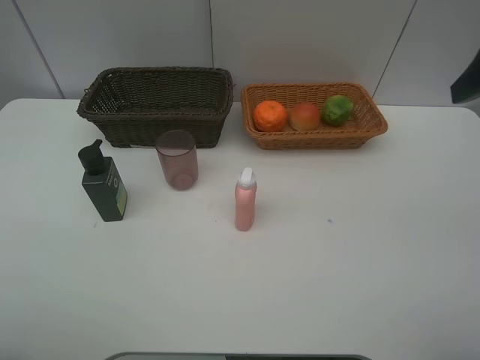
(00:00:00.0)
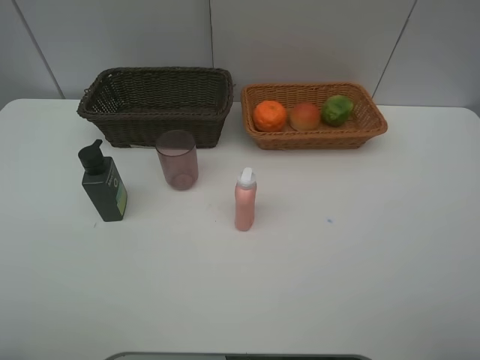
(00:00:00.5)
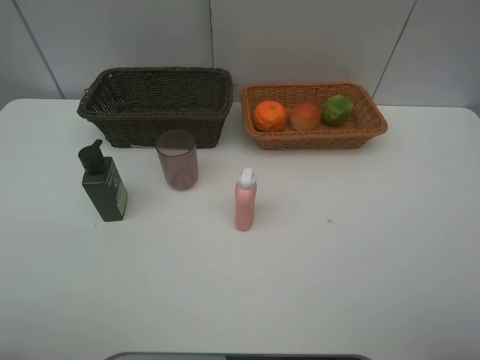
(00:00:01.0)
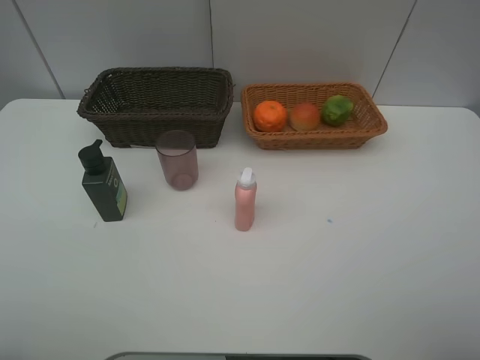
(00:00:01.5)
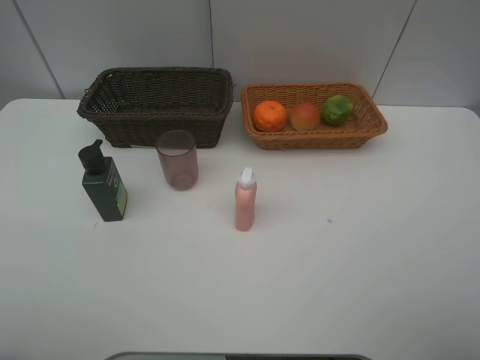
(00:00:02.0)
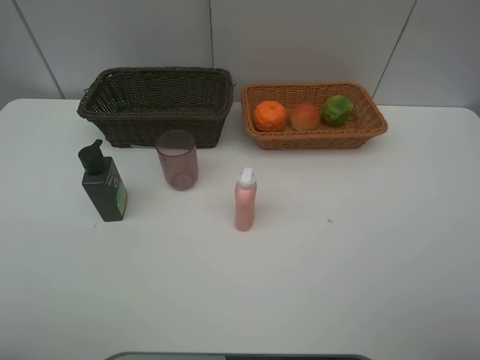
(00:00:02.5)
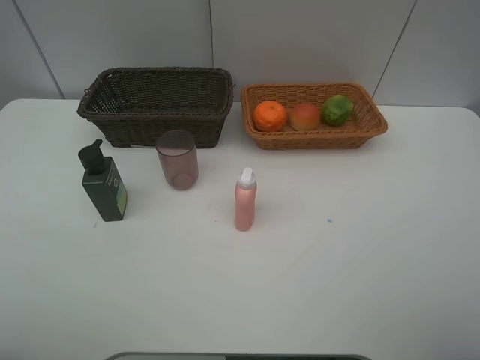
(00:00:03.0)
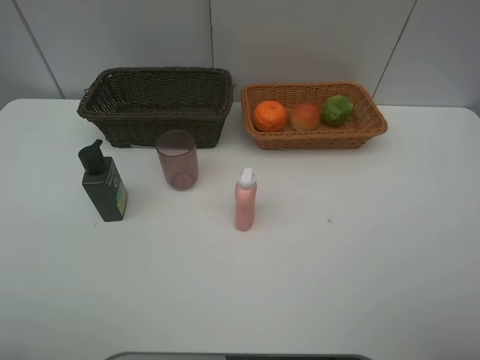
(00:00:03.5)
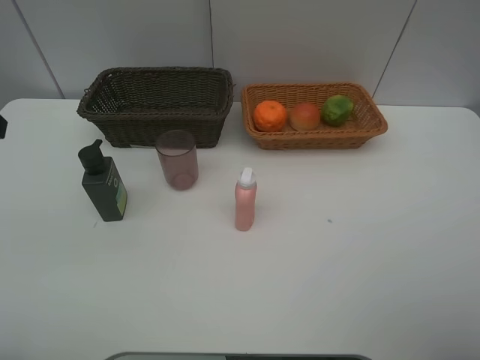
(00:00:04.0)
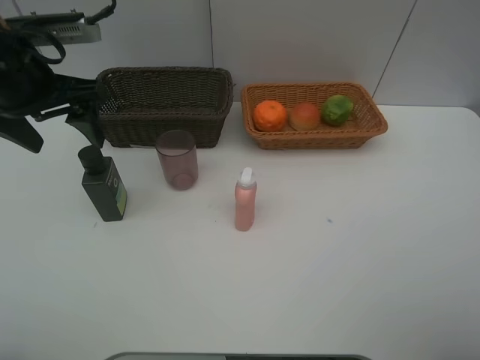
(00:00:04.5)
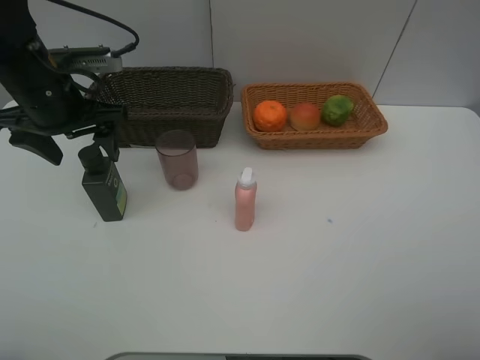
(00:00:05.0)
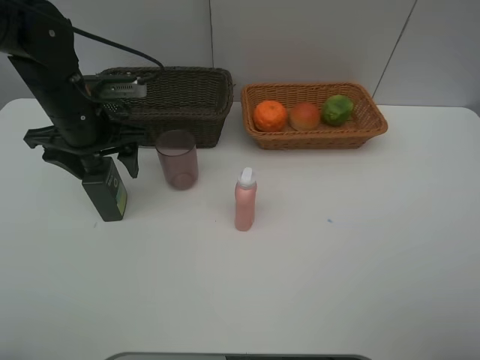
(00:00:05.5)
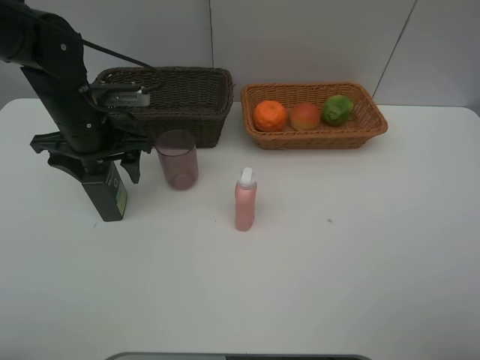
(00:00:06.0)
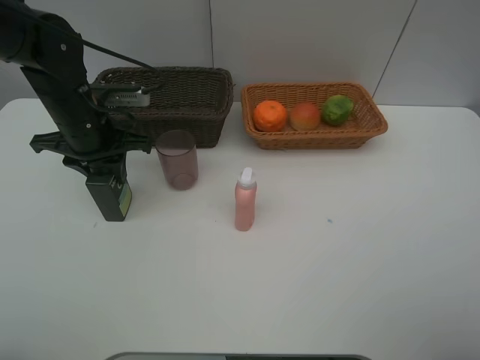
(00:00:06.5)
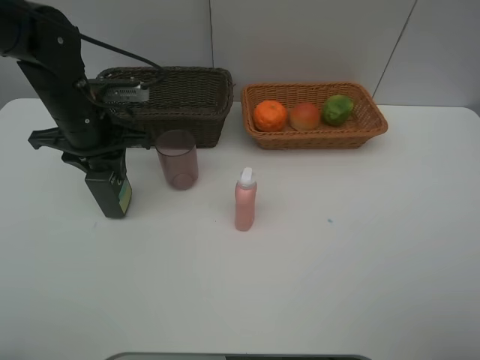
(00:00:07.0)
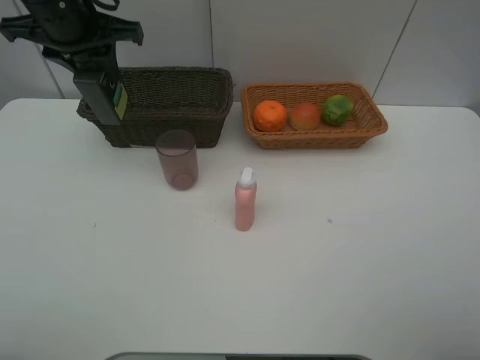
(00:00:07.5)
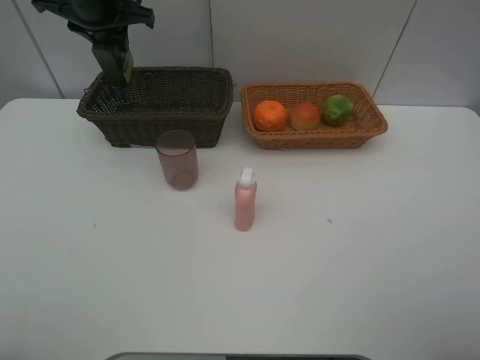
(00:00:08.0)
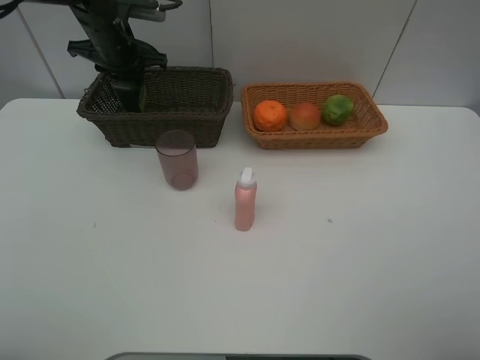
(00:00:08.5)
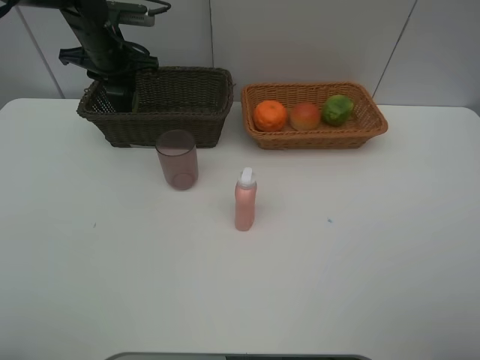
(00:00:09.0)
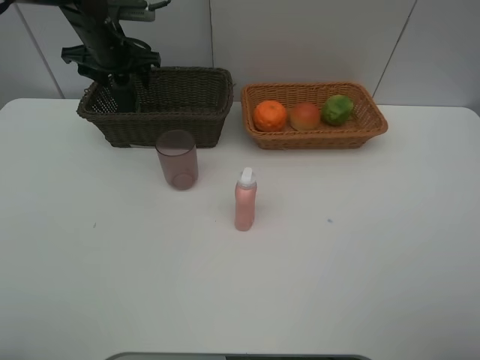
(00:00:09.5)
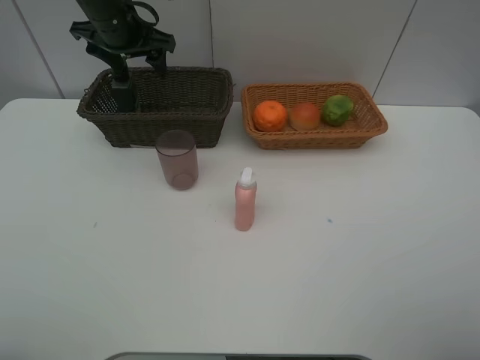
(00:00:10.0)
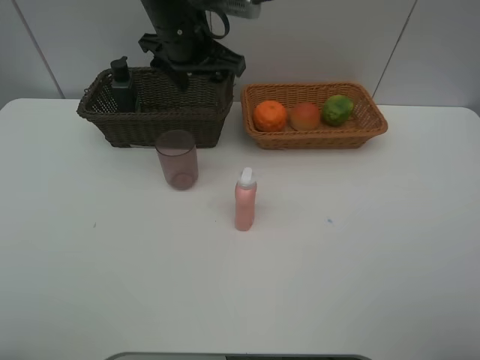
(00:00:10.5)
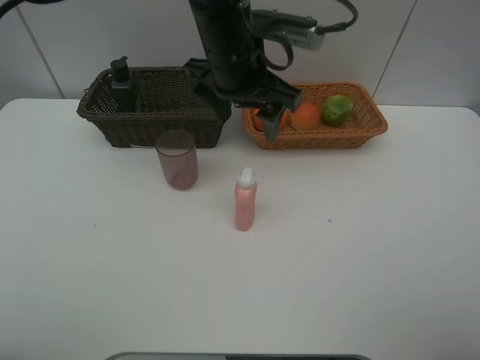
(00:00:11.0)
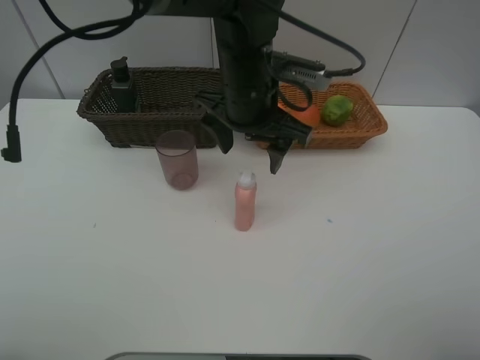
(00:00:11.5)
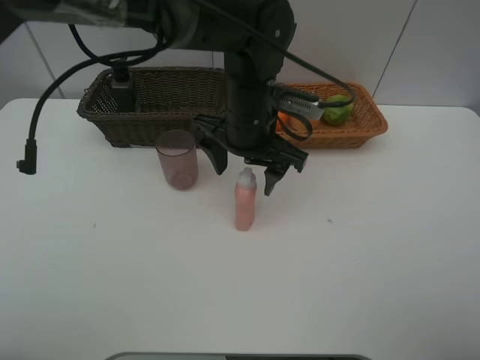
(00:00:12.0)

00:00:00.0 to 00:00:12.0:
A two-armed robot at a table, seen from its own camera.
Task of the whole recording: place multiple objects separately in different baskets.
00:00:04.0 to 00:00:06.0: The left gripper is displaced downward, forward and to the right by approximately 20 cm.
00:00:06.0 to 00:00:08.0: The left gripper shifts about 15 cm forward and upward, and closes.
00:00:08.0 to 00:00:10.0: The left gripper goes downward and returns, roughly 10 cm each way, and opens its fingers.
00:00:10.0 to 00:00:12.0: The left gripper shifts about 25 cm to the right and backward.

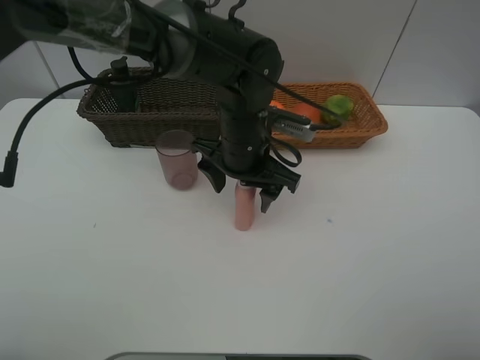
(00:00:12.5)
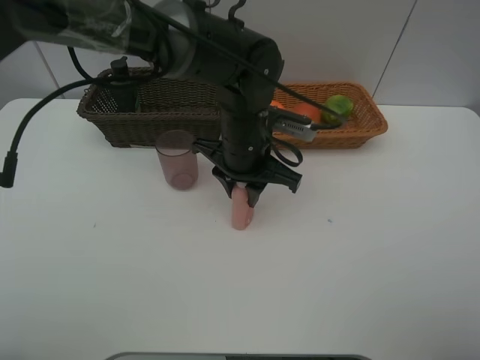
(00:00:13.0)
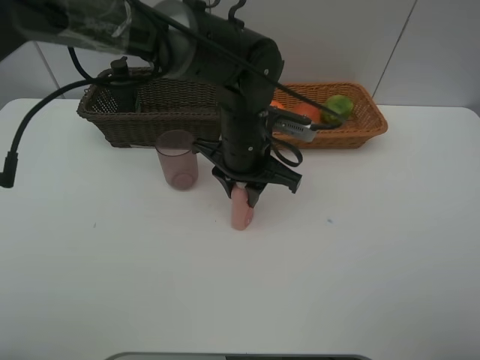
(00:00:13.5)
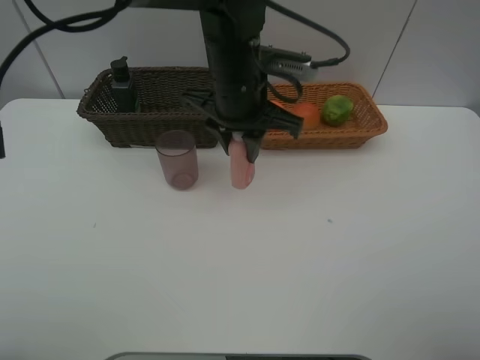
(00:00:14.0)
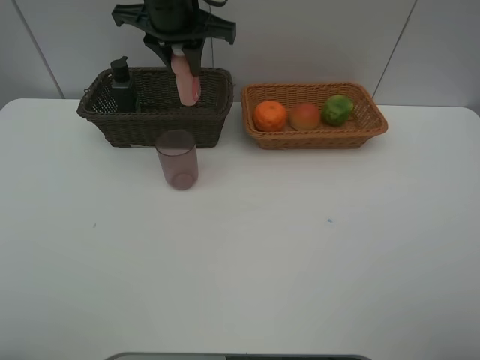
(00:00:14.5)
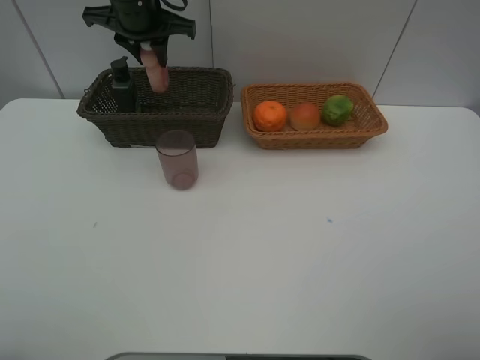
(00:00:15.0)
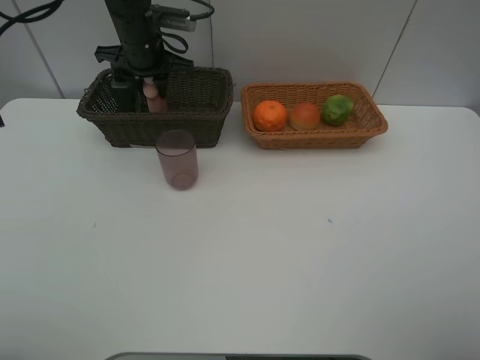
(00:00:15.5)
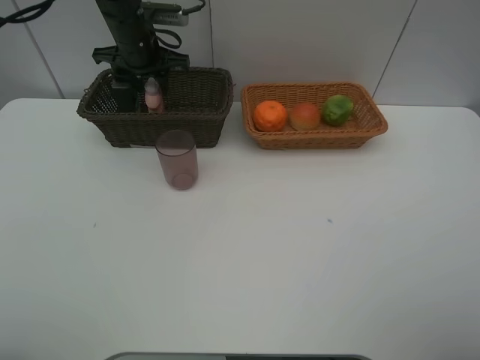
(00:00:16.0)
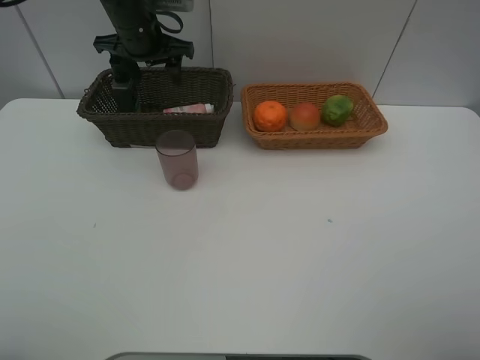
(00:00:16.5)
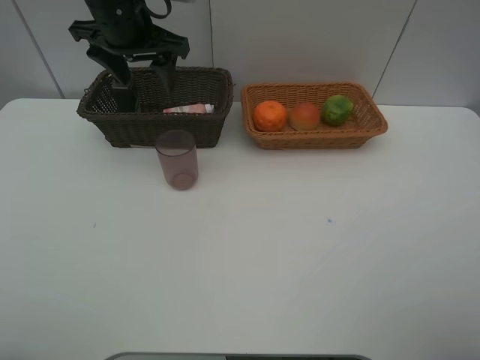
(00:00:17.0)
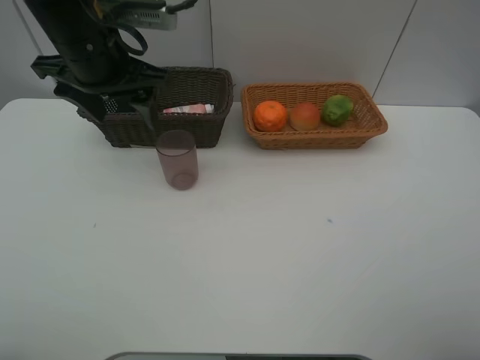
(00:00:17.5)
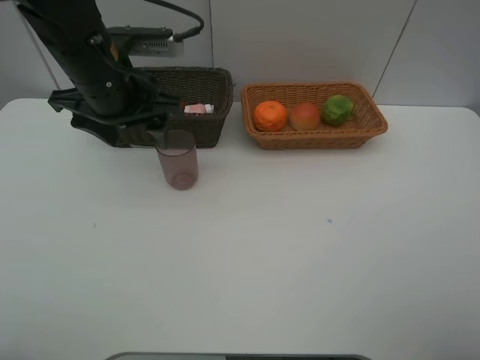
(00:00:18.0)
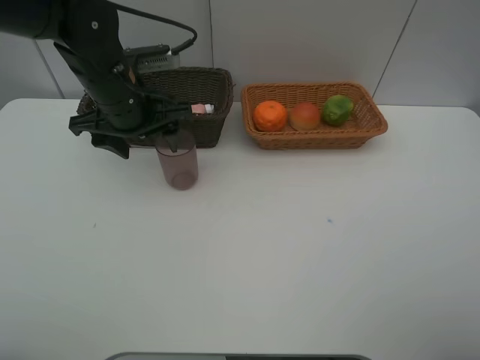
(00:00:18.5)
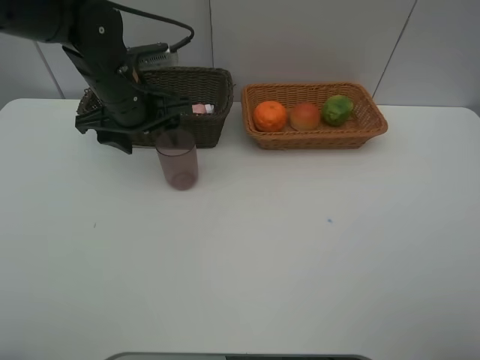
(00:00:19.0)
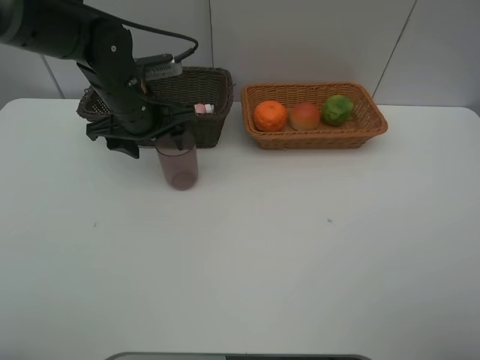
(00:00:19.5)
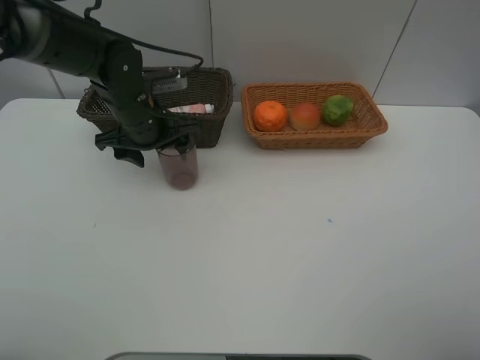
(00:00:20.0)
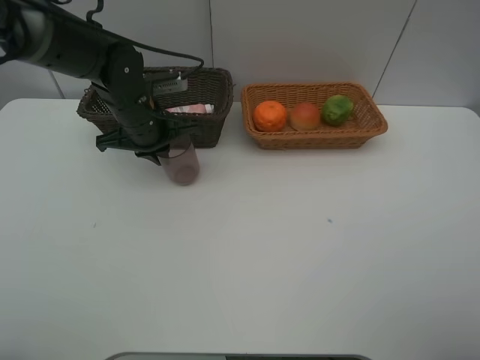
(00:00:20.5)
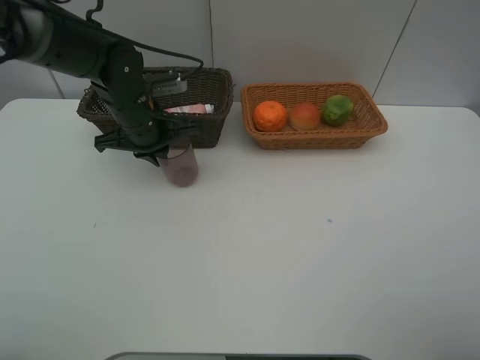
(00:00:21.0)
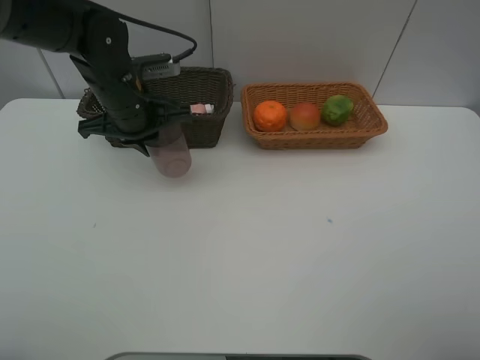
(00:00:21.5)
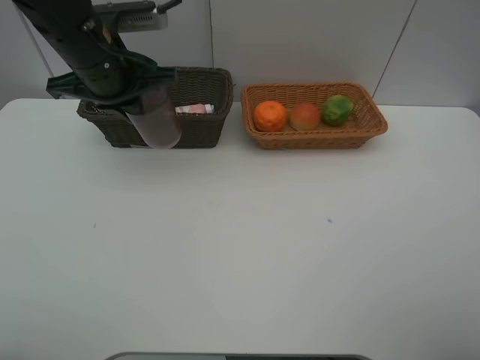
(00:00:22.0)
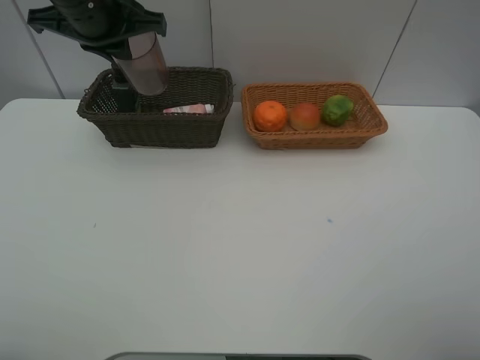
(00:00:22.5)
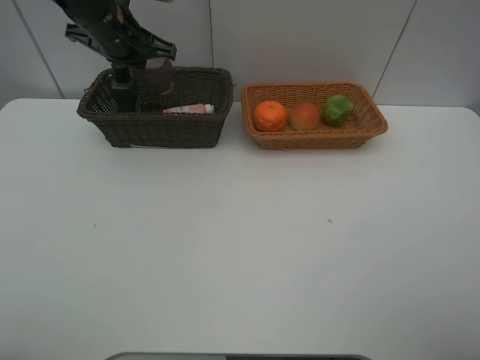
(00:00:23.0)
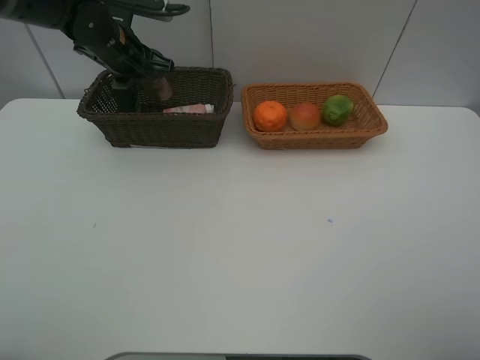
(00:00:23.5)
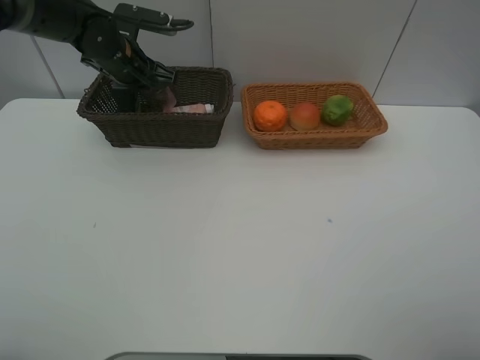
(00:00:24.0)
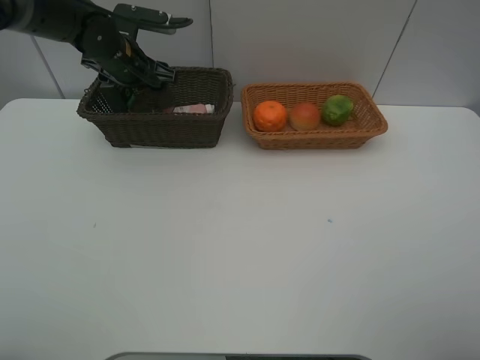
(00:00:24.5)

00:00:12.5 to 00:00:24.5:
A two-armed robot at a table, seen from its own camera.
Task of the whole recording: place multiple objects separately in different baskets.
00:00:12.5 to 00:00:14.5: The left gripper goes some 20 cm upward, forward and to the left, and closes.
00:00:14.5 to 00:00:16.5: The left gripper goes approximately 10 cm to the left, forward and downward, and opens.
00:00:16.5 to 00:00:18.5: The left gripper is displaced backward by approximately 15 cm.
00:00:18.5 to 00:00:20.5: The left gripper shifts approximately 5 cm downward, and closes up.
00:00:20.5 to 00:00:22.5: The left gripper shifts about 15 cm upward.
00:00:22.5 to 00:00:24.5: The left gripper travels downward and forward by about 15 cm, and opens.

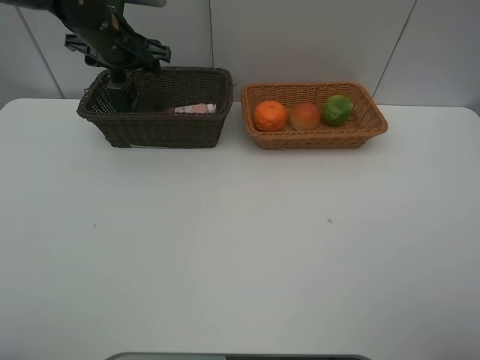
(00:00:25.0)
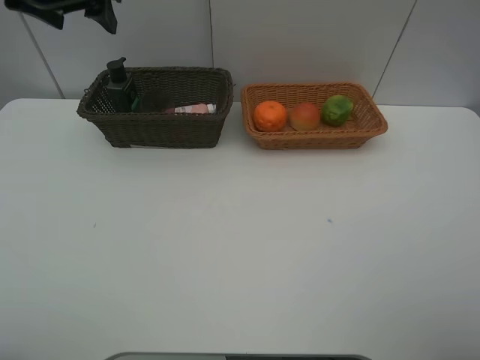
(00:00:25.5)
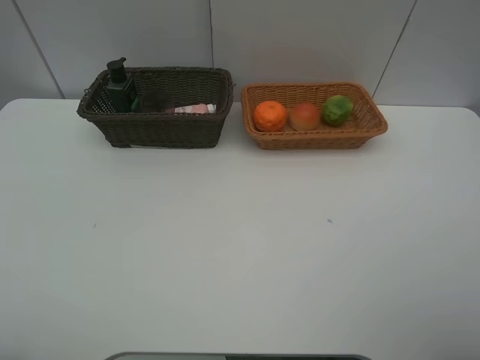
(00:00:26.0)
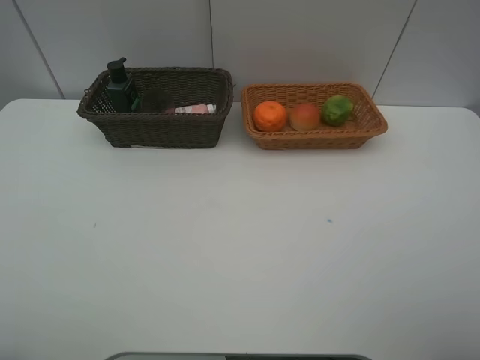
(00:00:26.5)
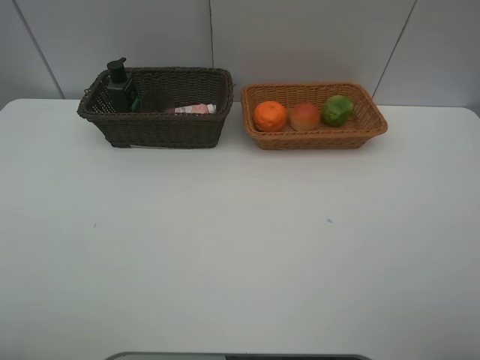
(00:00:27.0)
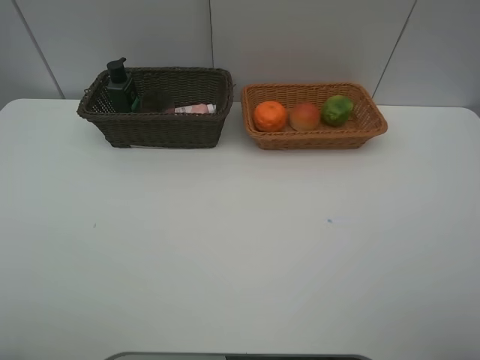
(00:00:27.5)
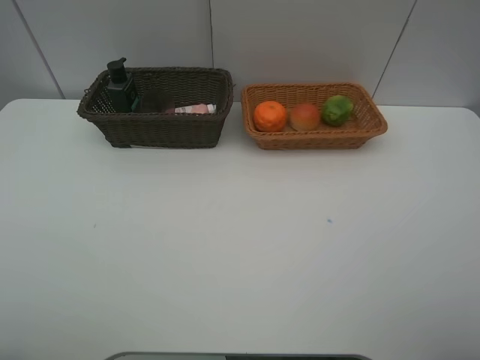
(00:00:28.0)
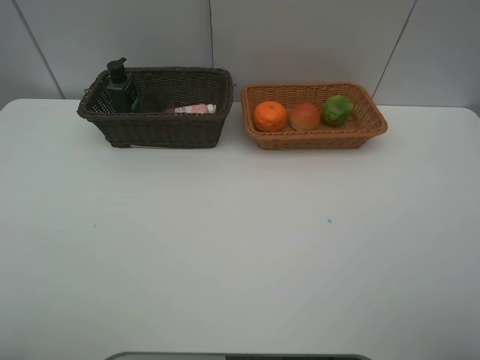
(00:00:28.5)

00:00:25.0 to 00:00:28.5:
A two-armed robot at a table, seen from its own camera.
Task of the whole recording: place multiple objects separately in different baskets.
00:00:25.0 to 00:00:27.0: The left gripper is displaced backward by about 40 cm.
00:00:27.0 to 00:00:28.5: Neither gripper changes place.
